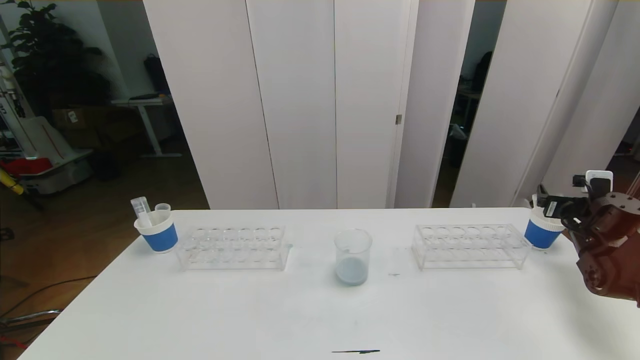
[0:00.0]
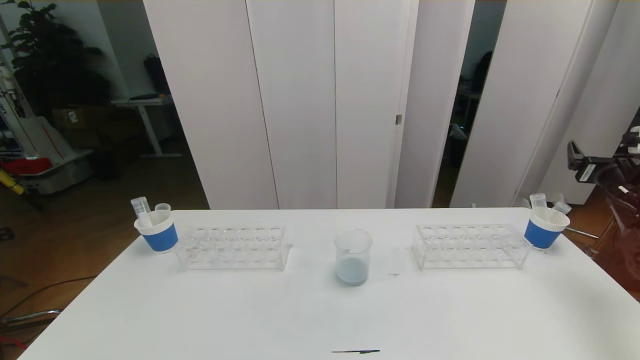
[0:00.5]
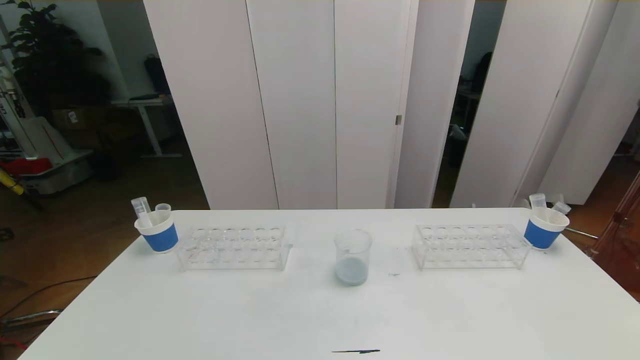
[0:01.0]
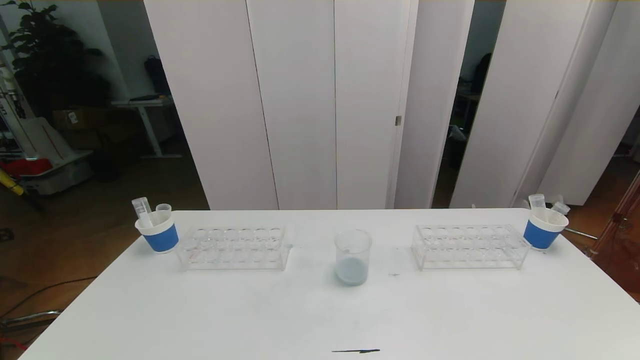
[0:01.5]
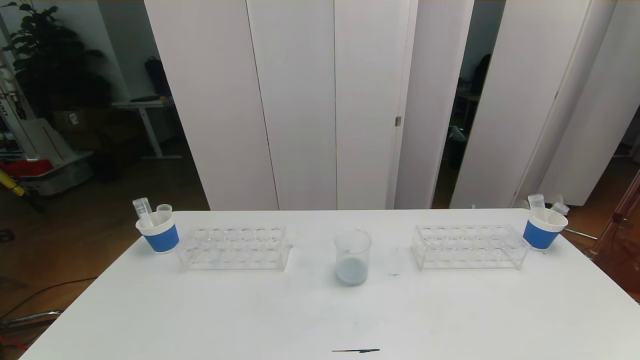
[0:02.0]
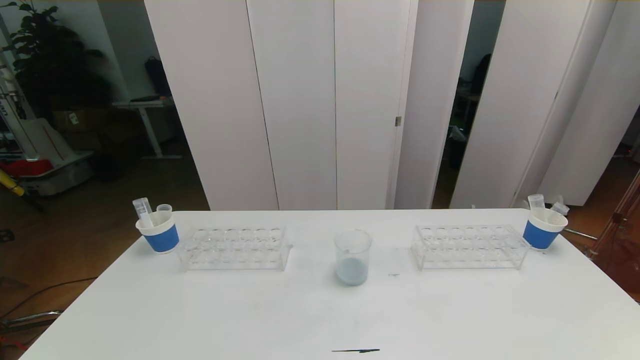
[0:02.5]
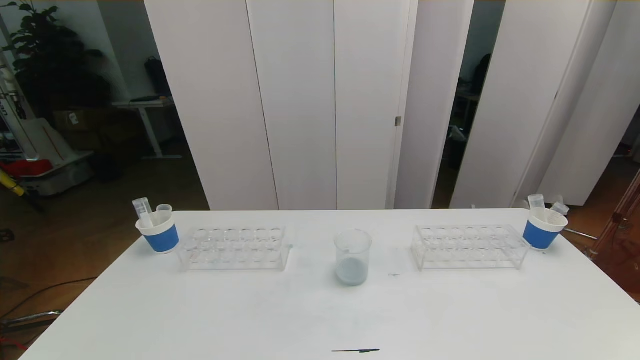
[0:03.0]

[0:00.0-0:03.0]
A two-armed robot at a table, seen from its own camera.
Task of the whole recording: pick up the test tube with red pigment the test tube with blue pigment and the test tube with white pigment by grippers and pour them into the beaker.
0:00.0 to 0:01.5: The right gripper is displaced backward and upward by roughly 40 cm.
